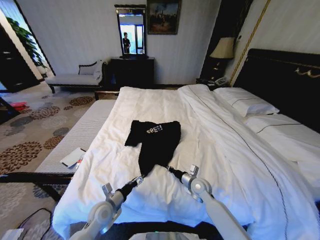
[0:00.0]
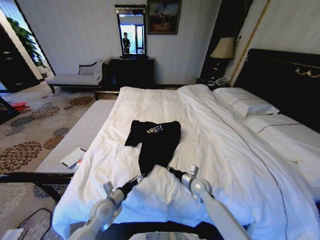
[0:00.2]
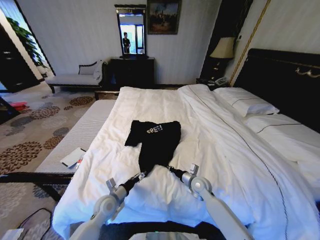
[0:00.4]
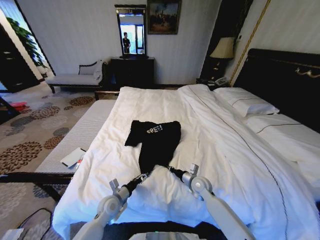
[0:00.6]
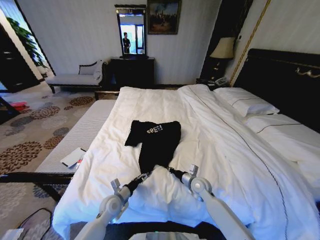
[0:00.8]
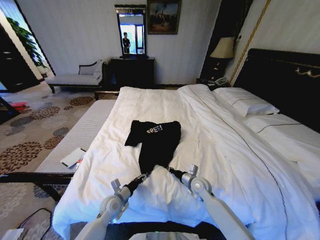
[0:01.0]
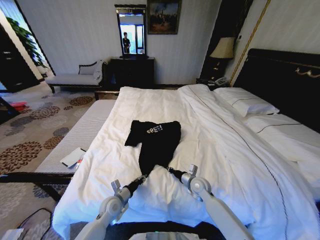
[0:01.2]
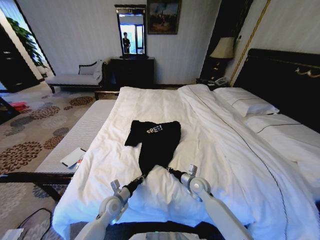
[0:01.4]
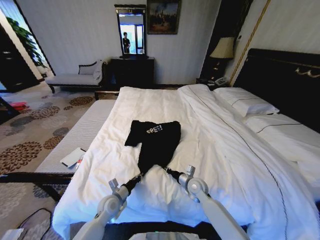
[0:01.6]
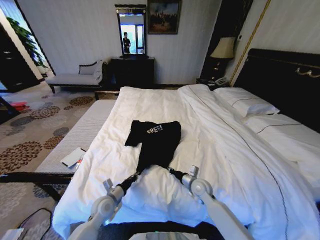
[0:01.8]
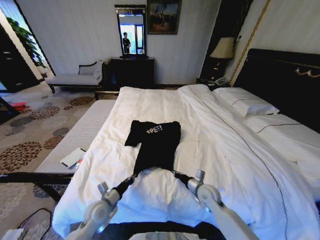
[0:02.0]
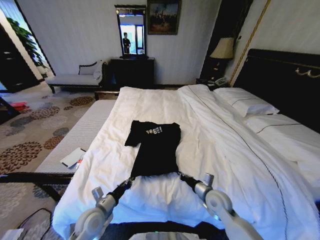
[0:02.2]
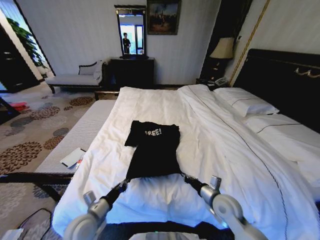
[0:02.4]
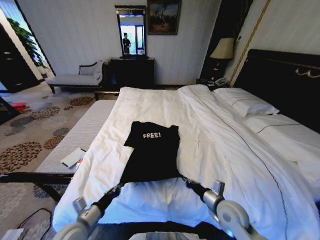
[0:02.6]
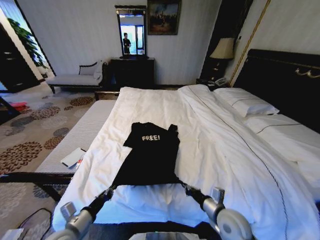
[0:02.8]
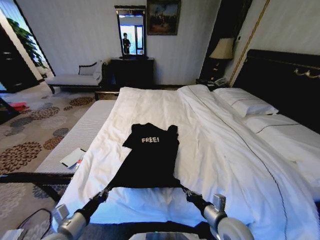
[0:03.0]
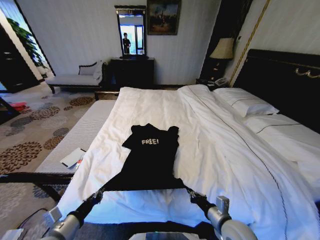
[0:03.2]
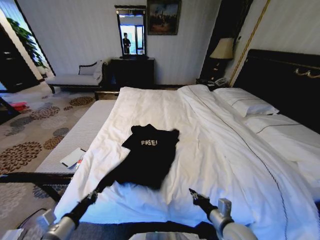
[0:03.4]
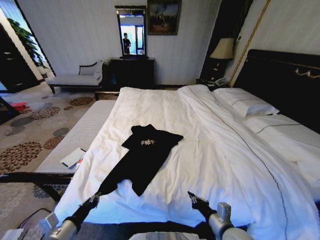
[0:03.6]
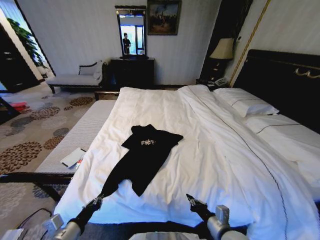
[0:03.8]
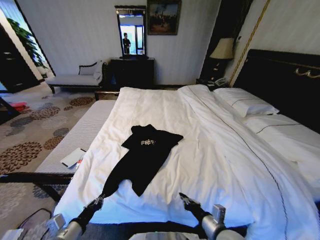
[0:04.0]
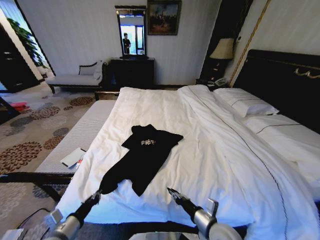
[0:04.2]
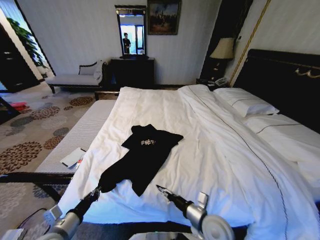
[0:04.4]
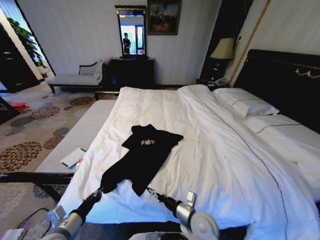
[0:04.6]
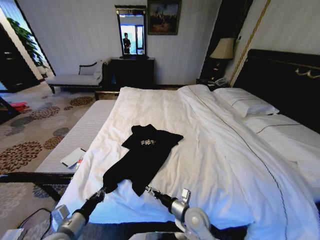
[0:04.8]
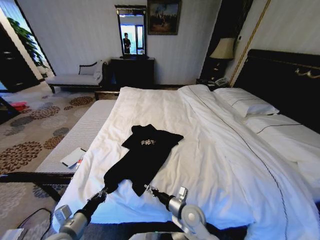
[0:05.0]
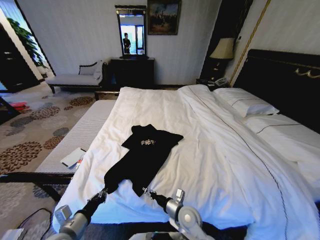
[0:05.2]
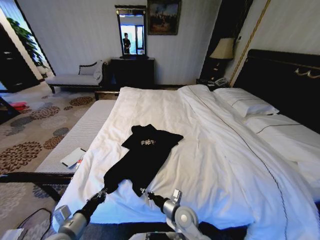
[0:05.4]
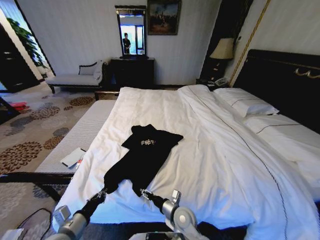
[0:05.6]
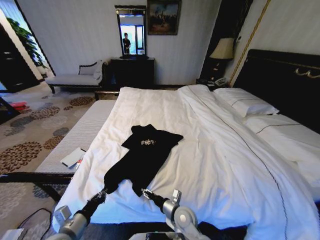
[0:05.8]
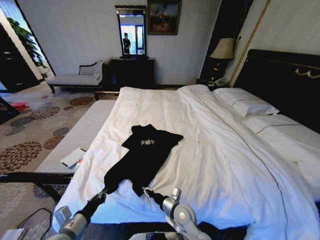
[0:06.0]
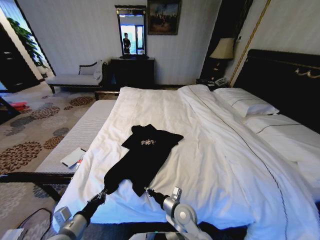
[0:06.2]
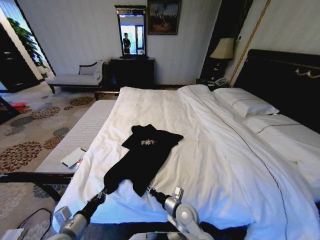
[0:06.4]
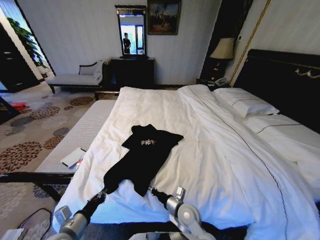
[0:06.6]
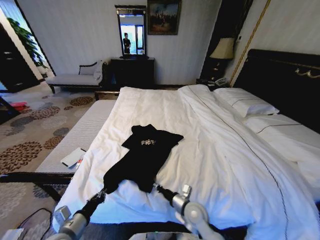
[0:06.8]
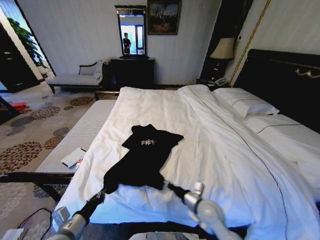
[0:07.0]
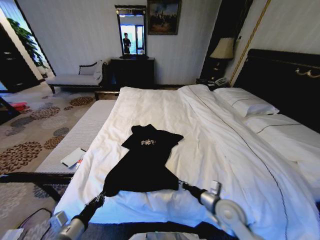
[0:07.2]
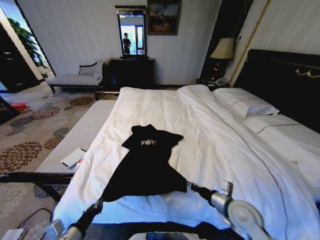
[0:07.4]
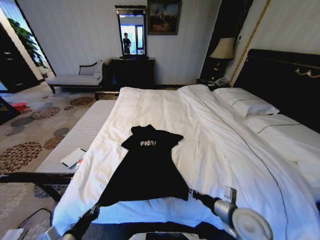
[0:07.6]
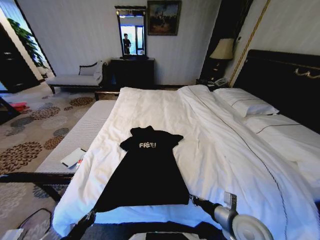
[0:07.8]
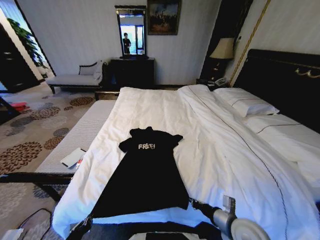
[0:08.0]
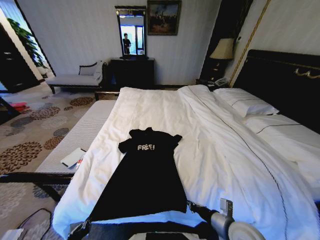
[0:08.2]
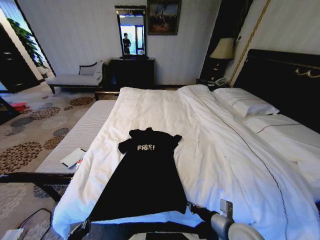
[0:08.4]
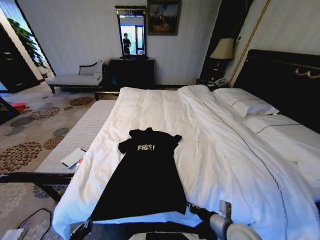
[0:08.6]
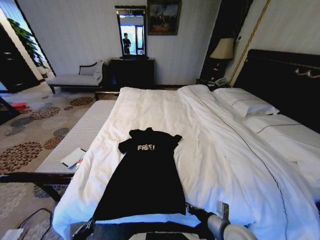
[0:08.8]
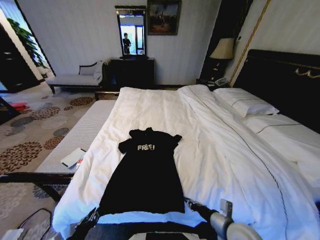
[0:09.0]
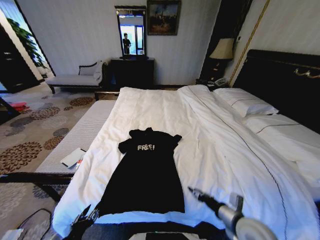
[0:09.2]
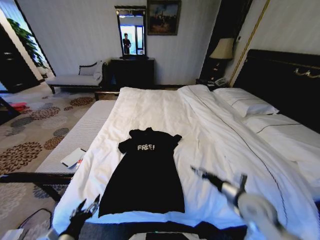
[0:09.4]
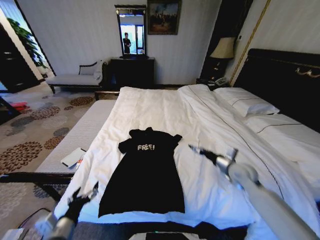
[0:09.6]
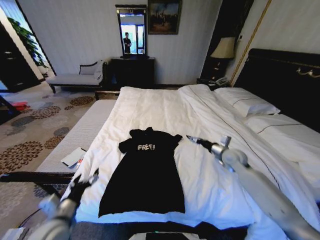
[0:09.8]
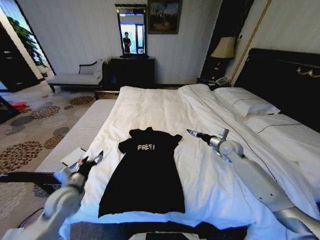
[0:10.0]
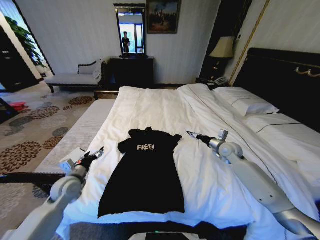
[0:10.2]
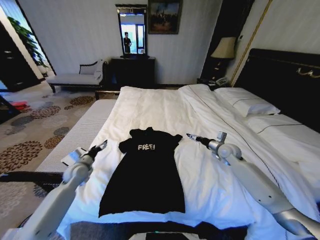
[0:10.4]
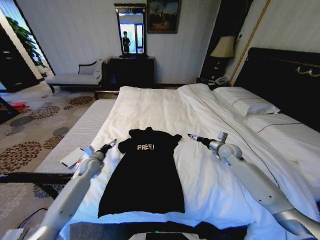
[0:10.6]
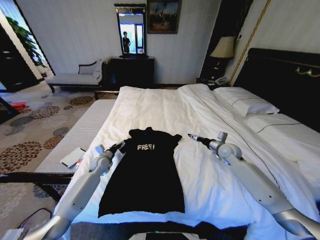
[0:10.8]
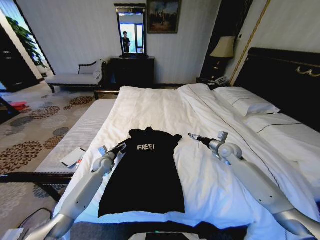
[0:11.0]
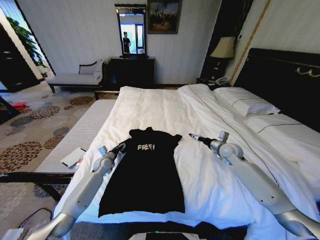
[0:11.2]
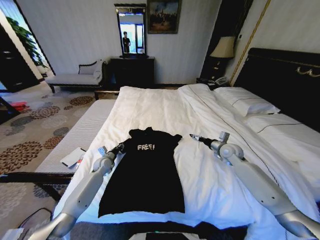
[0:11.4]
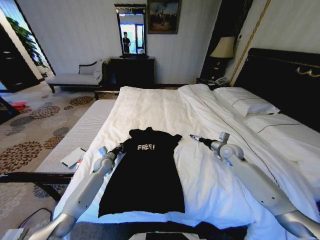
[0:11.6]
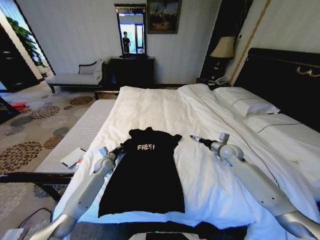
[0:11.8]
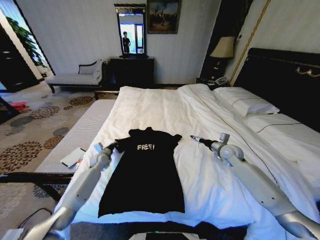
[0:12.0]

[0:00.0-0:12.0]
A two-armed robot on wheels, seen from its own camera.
Task of the whole recording: Fold the clothes on the bed.
0.0 to 1.6 s: The left gripper closes its fingers.
1.6 to 3.0 s: The right gripper shifts some 20 cm backward. The left gripper shifts roughly 20 cm backward, upward and to the left.
3.0 to 4.4 s: The right gripper travels to the left by some 5 cm, and opens its fingers.
4.4 to 6.0 s: The right gripper moves to the left, downward and forward, some 10 cm, and opens, then closes once more.
6.0 to 7.6 s: The left gripper shifts about 5 cm backward, while the right gripper goes roughly 20 cm to the right and upward, and closes up.
7.6 to 9.0 s: The right gripper ends up some 5 cm from where it was.
9.0 to 10.4 s: Both grippers move forward, roughly 30 cm. The right gripper opens up. Meanwhile the left gripper opens its fingers.
10.4 to 12.0 s: The left gripper is displaced forward and downward by some 15 cm, and closes.

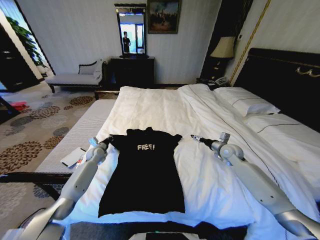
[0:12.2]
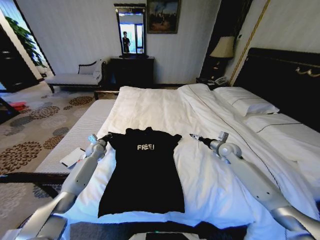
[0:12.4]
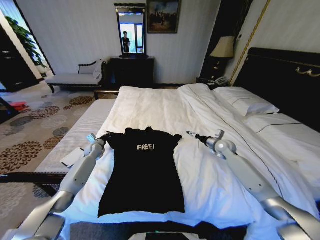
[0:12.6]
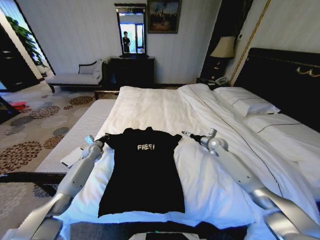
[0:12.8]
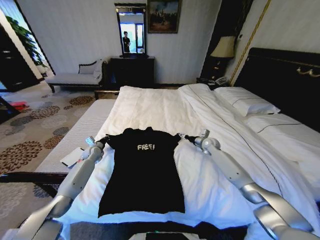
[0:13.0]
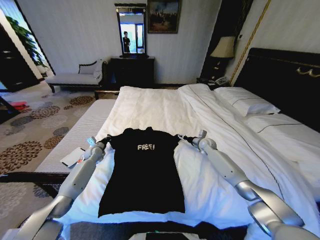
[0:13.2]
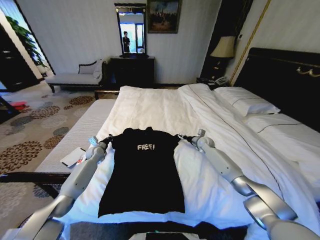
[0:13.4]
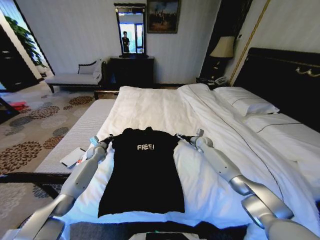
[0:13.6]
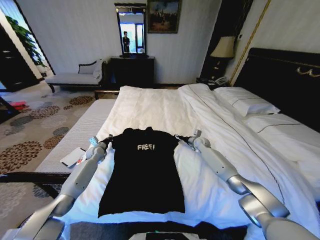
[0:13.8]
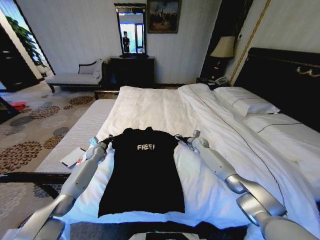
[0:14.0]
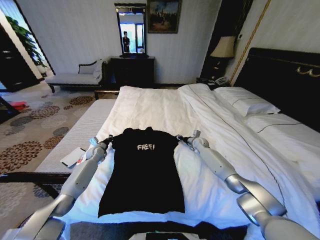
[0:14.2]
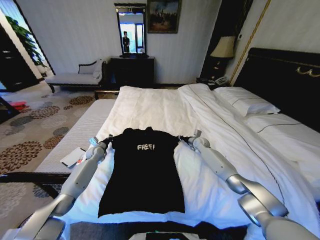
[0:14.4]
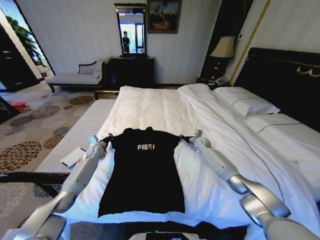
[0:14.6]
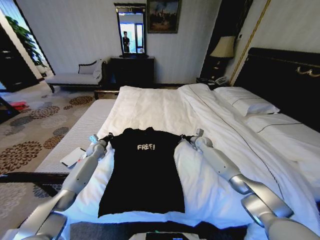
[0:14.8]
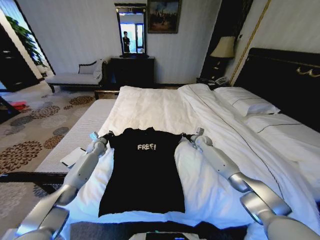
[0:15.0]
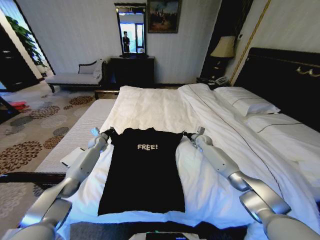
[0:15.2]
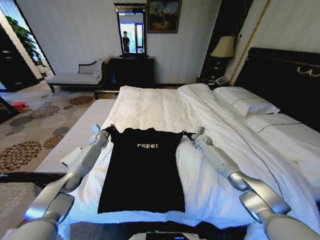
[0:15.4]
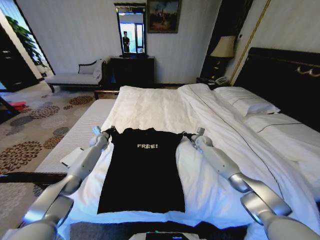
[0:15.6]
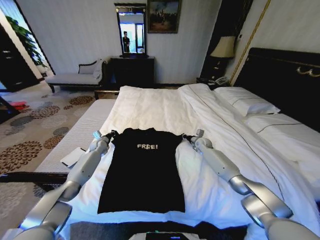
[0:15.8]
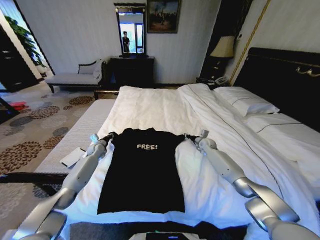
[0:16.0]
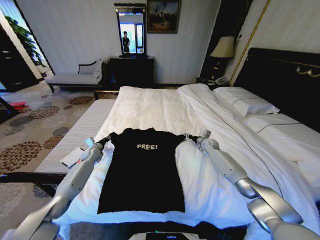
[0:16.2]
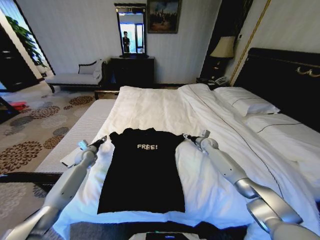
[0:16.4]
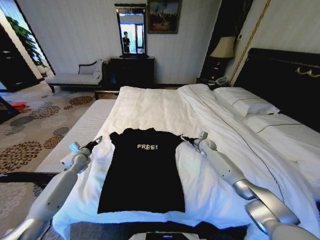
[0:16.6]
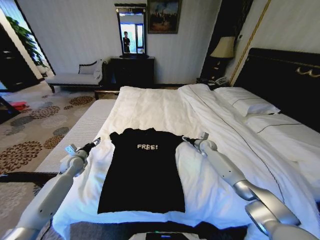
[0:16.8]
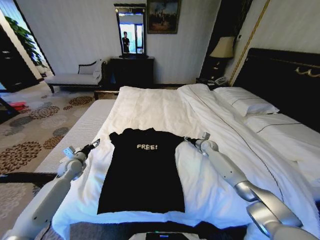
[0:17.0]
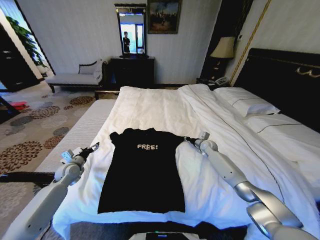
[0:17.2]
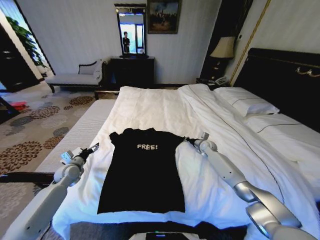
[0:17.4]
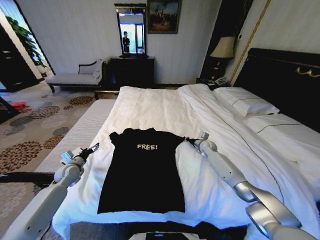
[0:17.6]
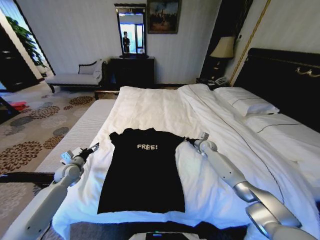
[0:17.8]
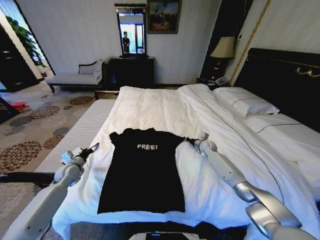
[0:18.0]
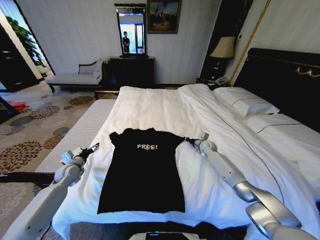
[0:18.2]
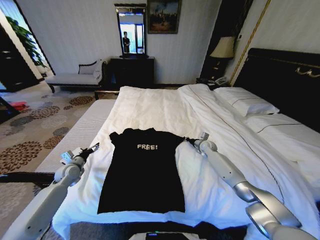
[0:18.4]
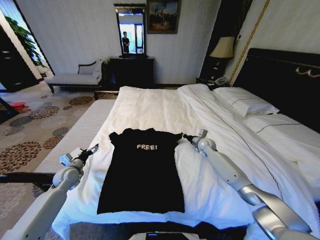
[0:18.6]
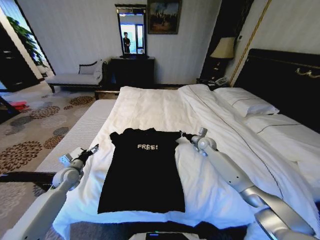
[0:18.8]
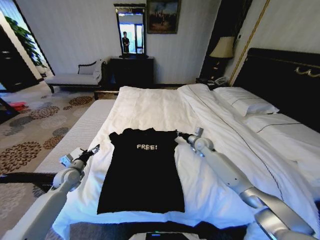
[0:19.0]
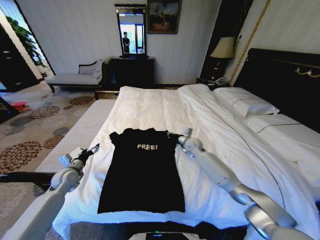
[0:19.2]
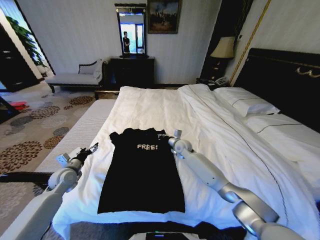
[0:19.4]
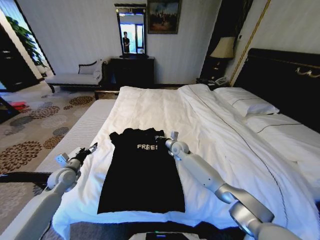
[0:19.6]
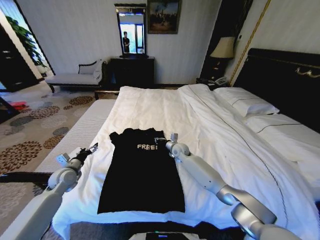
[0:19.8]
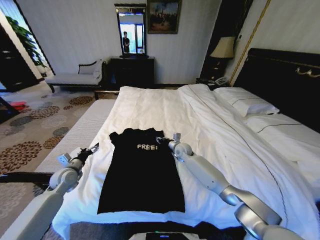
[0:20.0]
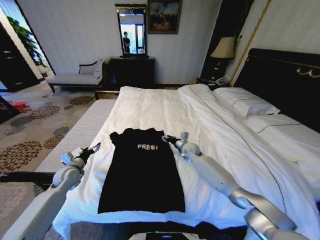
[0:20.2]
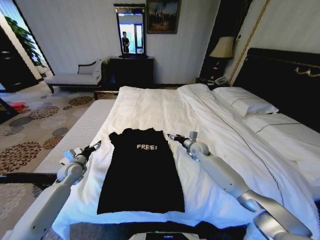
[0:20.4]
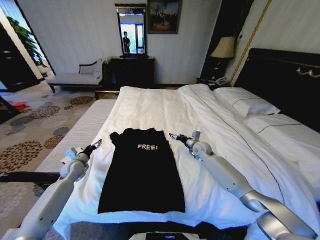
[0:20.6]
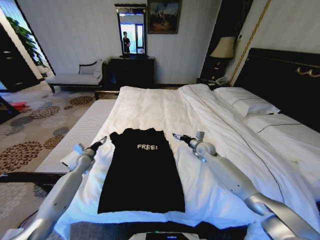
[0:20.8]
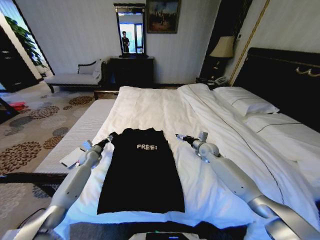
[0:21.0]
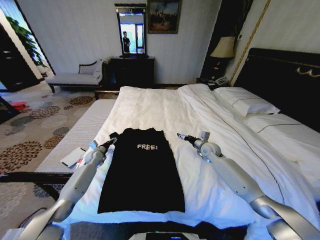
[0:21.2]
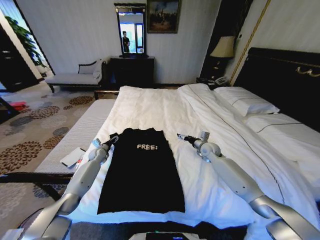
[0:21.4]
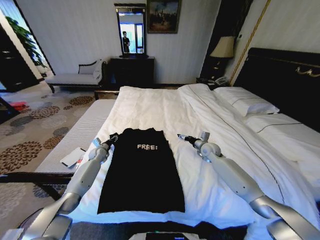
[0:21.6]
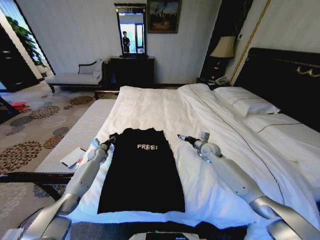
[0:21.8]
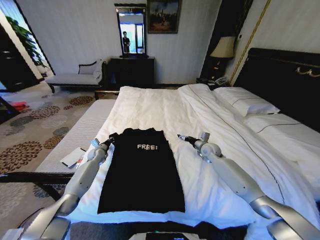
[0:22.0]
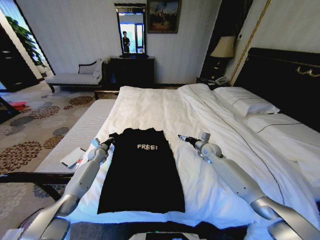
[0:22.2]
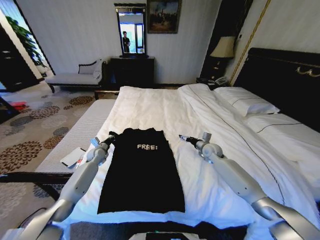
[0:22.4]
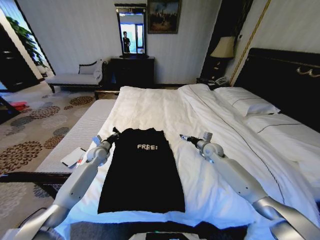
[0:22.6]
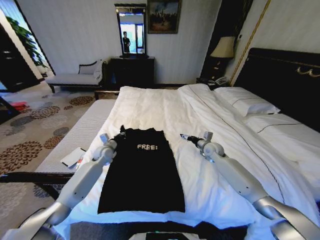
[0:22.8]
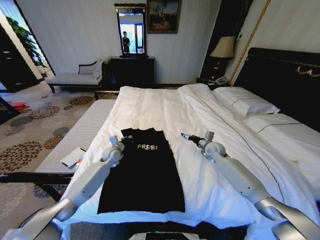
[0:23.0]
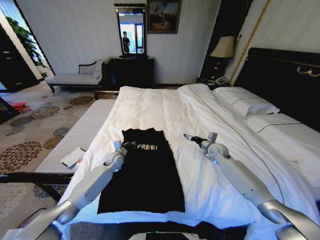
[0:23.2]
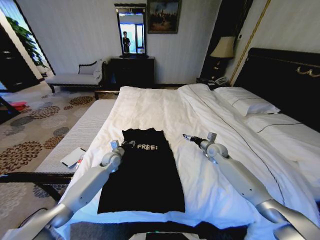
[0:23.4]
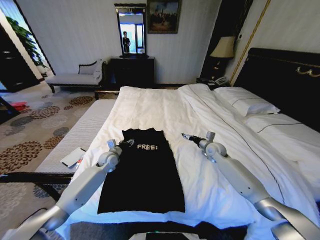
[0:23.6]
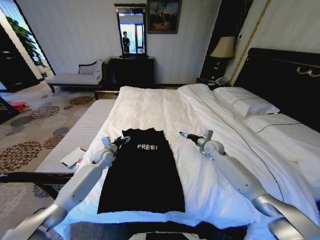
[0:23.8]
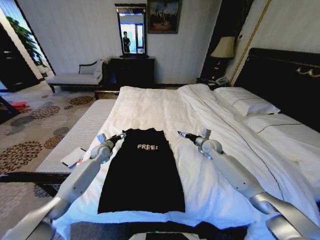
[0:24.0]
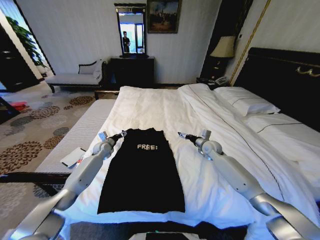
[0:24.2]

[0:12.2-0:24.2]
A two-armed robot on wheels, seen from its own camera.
Task of the whole recording: Fold the clothes on the bed.
12.2 to 13.8 s: The right gripper shifts some 15 cm forward, to the left and downward.
13.8 to 15.2 s: The left gripper moves forward, about 5 cm, while the right gripper closes.
15.2 to 16.6 s: The right gripper opens its fingers; the left gripper heads backward and to the left, covering about 15 cm, and opens up.
16.6 to 18.2 s: The right gripper closes up, while the left gripper goes approximately 5 cm backward.
18.2 to 19.8 s: The right gripper shifts about 20 cm to the left.
19.8 to 21.2 s: The left gripper goes about 15 cm forward and downward. Meanwhile the right gripper heads to the right, covering about 15 cm, and opens.
21.2 to 22.6 s: The left gripper shifts approximately 5 cm upward, and closes its fingers.
22.6 to 24.2 s: The left gripper reaches some 10 cm to the right, then returns, and opens.
